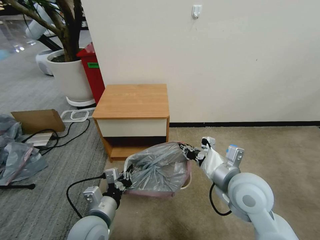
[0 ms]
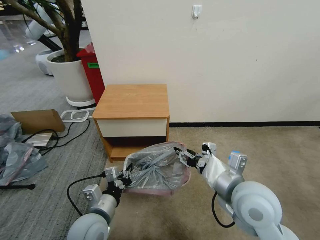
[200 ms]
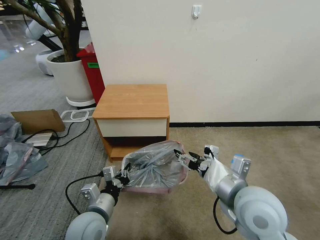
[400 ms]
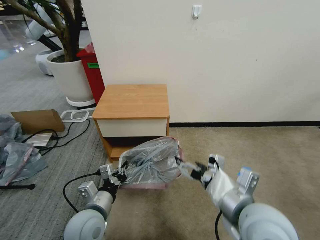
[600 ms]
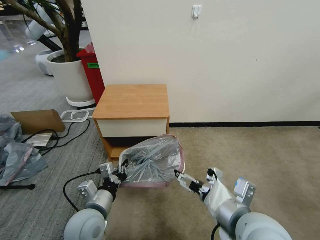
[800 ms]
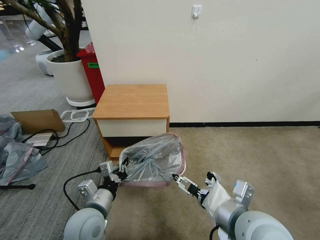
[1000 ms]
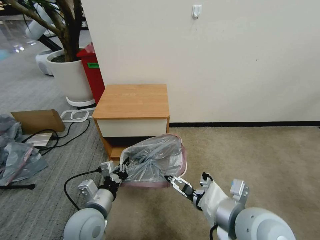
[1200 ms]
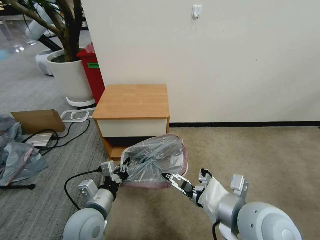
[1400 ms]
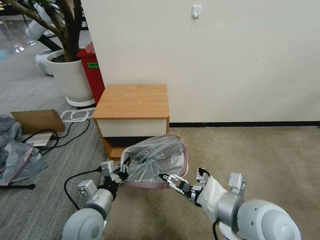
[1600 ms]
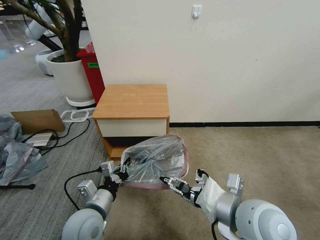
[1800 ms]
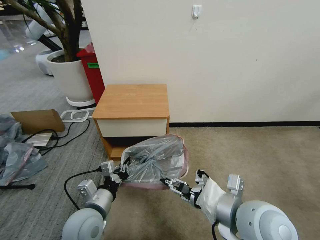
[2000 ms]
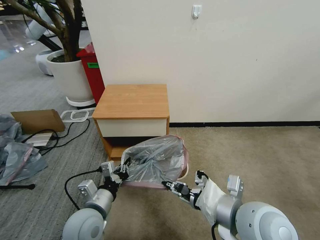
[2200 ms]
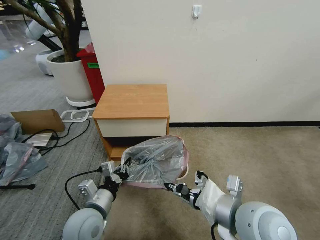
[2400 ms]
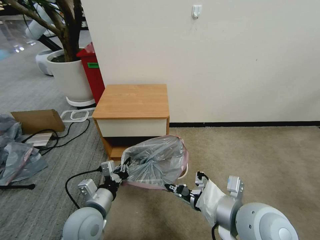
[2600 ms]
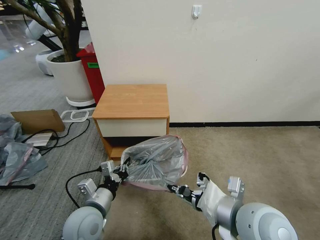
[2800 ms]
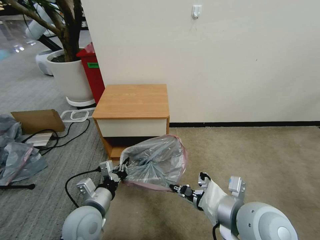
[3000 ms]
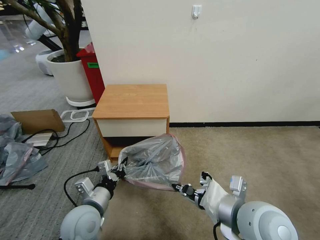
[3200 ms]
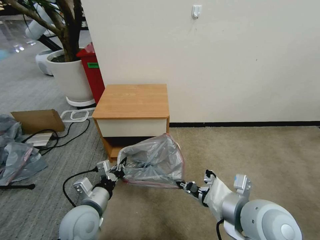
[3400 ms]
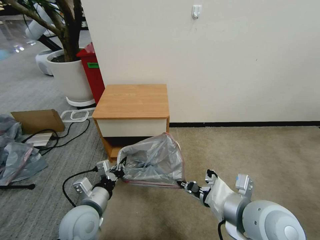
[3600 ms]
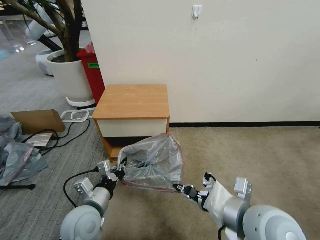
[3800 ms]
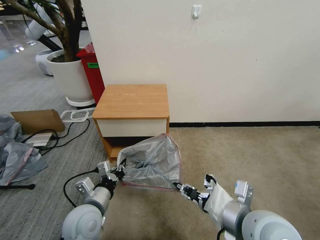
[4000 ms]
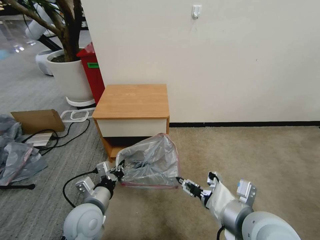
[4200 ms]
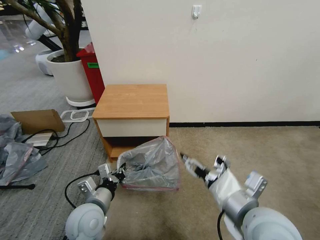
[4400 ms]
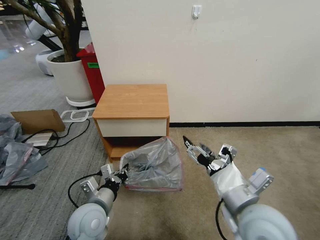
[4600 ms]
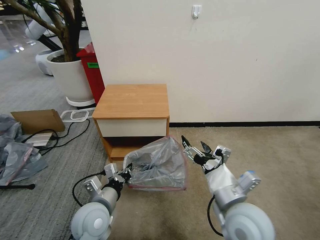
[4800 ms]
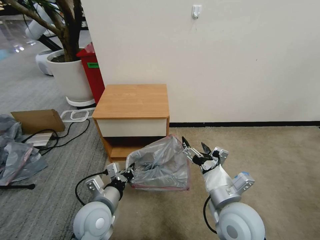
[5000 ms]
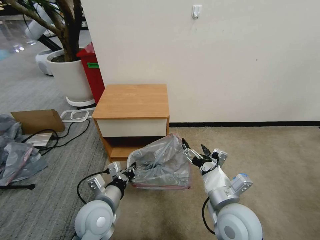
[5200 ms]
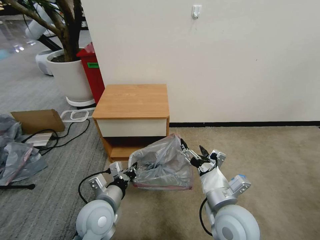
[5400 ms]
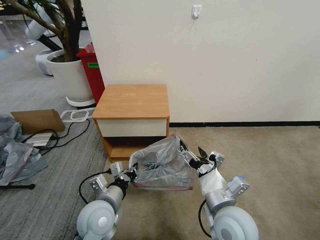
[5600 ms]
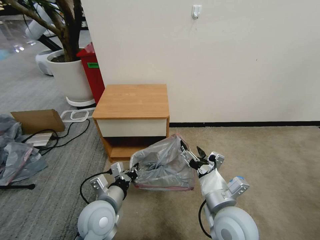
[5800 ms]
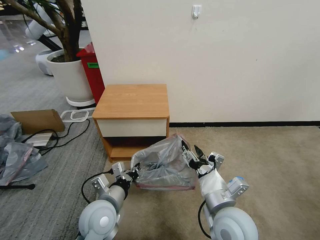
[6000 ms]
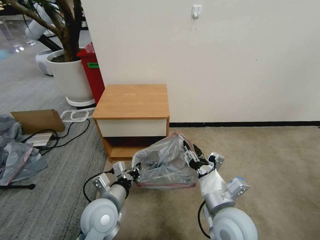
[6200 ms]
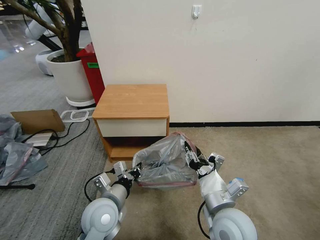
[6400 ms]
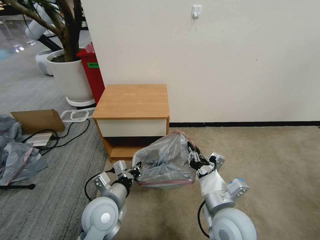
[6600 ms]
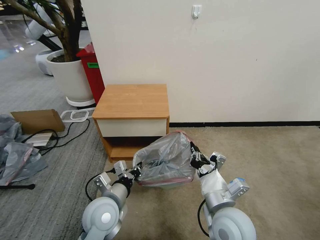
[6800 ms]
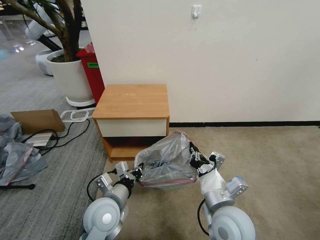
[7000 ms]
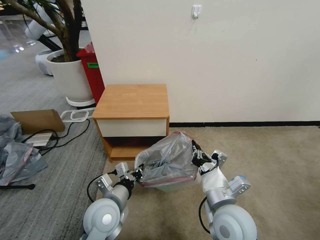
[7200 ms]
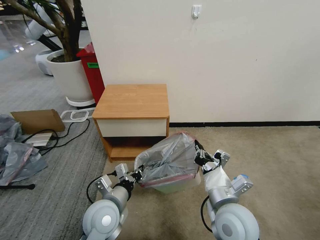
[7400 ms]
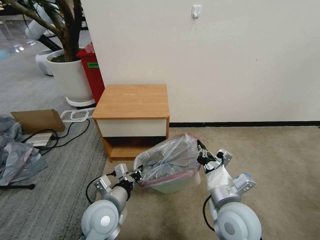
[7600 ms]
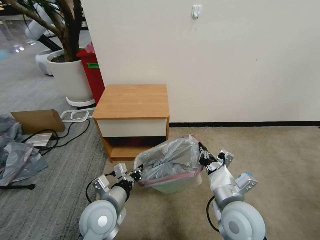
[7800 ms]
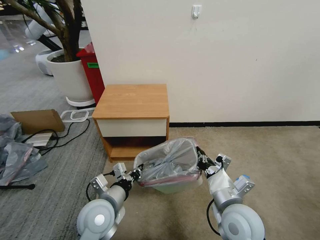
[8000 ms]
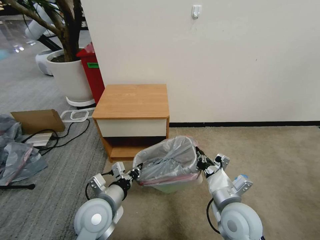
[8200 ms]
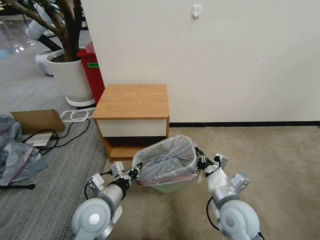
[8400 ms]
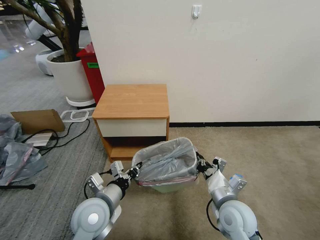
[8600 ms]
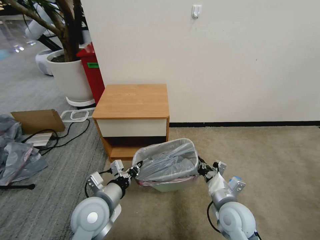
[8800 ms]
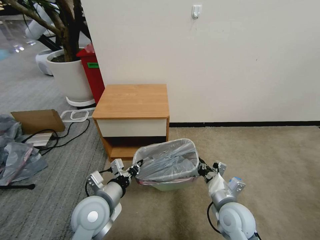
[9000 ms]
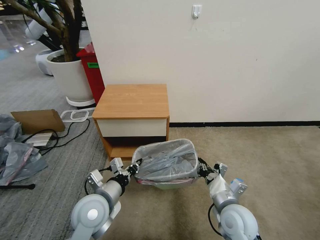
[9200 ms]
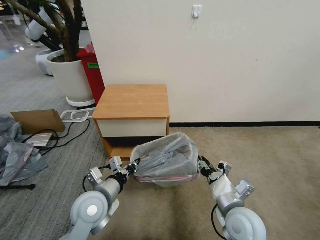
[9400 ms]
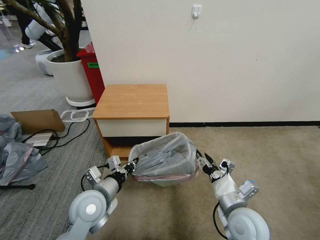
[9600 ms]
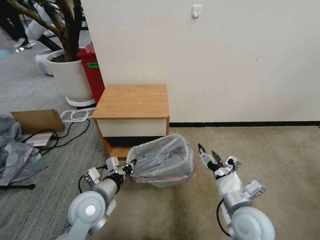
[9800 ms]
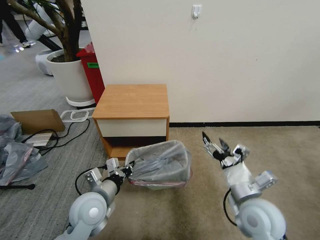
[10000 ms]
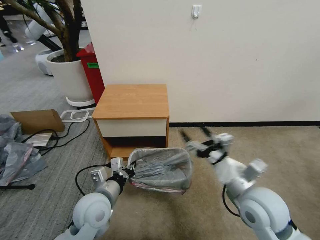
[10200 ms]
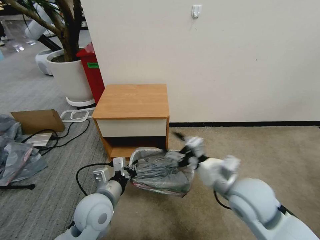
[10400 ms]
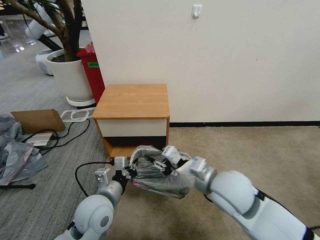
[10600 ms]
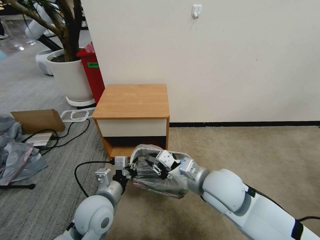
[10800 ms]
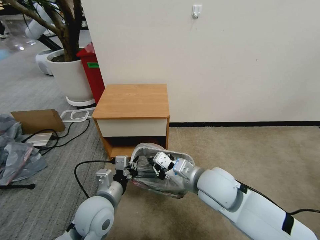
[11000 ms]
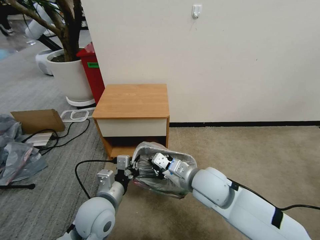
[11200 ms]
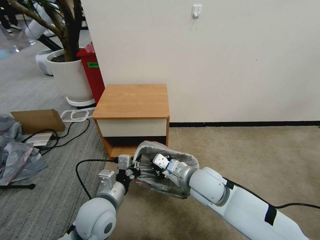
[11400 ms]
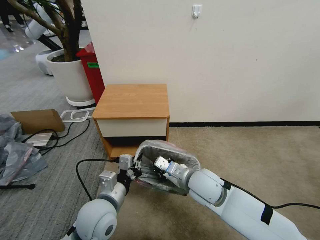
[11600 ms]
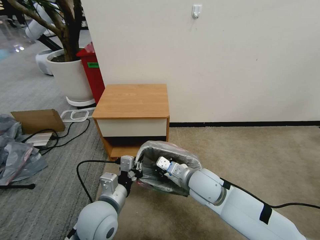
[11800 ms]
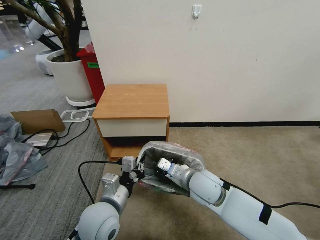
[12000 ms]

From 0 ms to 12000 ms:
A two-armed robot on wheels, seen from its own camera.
Task of the whole recording: Pick up the garbage bag from the table and place it over the trash can.
From 0 ms to 1600 ms: The right gripper shifts approximately 5 cm backward, and opens.
From 1600 ms to 3000 ms: The right gripper closes up.
From 3000 ms to 4400 ms: The right gripper opens.
From 4400 ms to 6000 ms: The right gripper is displaced downward by about 5 cm.
From 6000 ms to 7600 ms: The right gripper closes up.
From 7600 ms to 9000 ms: The right gripper heads downward, covering roughly 10 cm.
From 9000 ms to 10400 ms: The right gripper shifts roughly 15 cm upward, and opens.
From 10400 ms to 12000 ms: The right gripper is displaced downward, to the left and forward by approximately 15 cm, and closes.

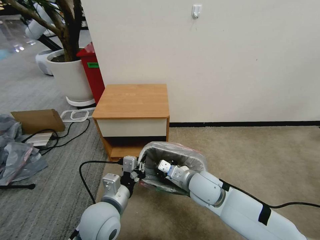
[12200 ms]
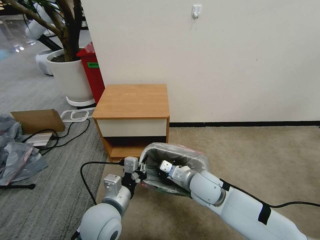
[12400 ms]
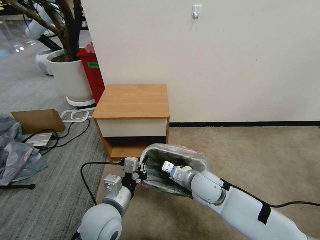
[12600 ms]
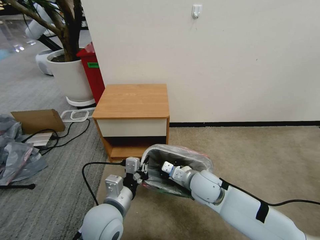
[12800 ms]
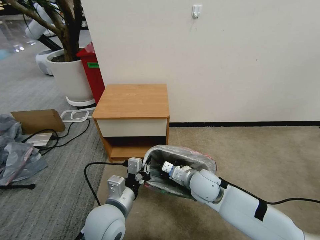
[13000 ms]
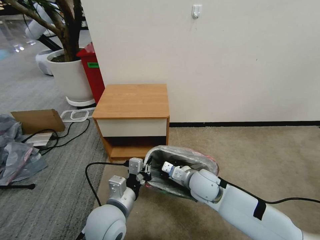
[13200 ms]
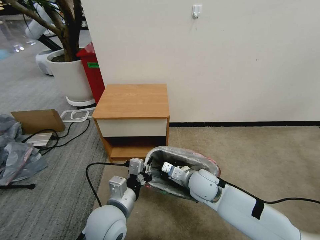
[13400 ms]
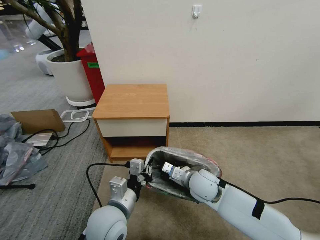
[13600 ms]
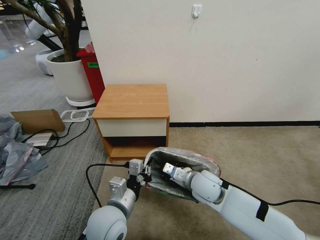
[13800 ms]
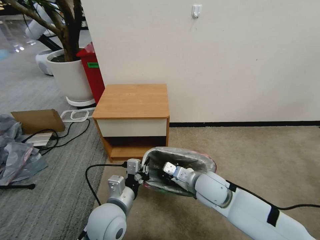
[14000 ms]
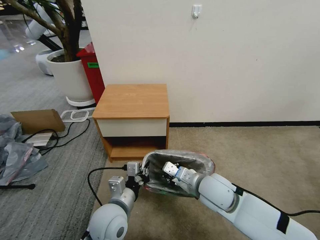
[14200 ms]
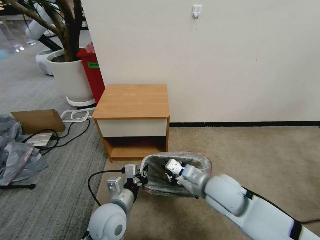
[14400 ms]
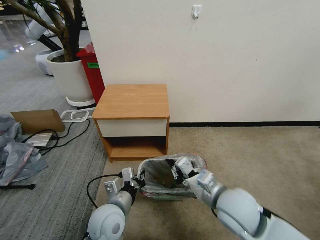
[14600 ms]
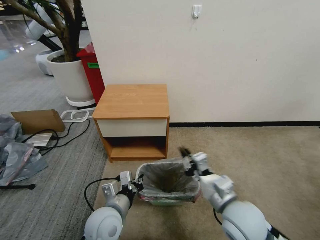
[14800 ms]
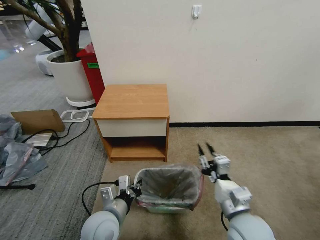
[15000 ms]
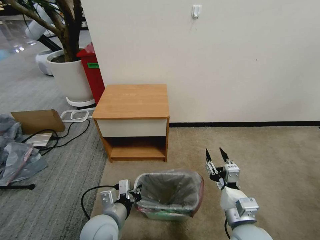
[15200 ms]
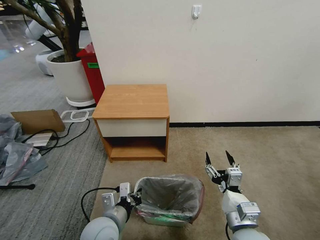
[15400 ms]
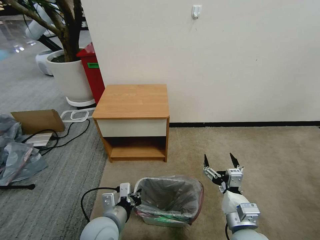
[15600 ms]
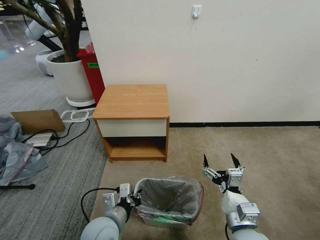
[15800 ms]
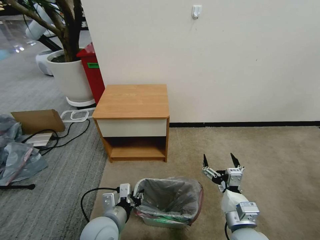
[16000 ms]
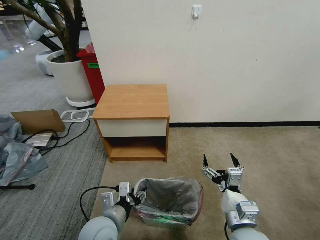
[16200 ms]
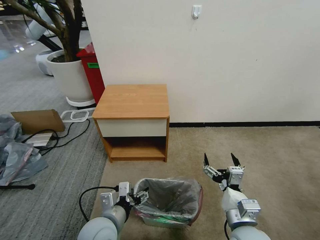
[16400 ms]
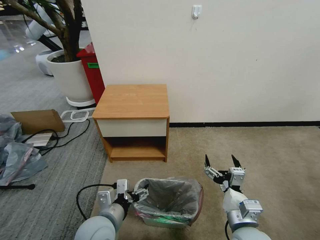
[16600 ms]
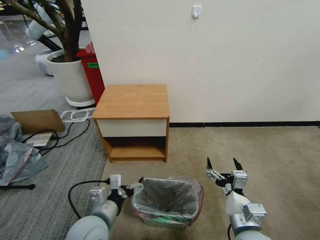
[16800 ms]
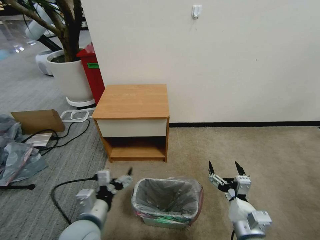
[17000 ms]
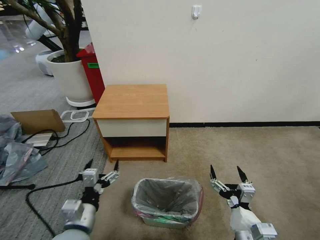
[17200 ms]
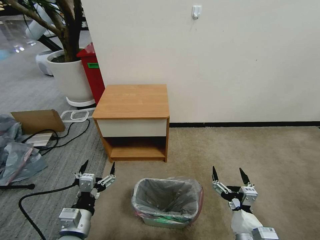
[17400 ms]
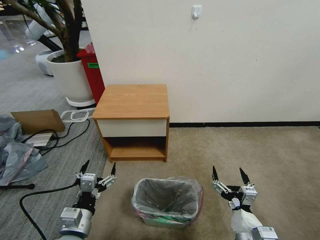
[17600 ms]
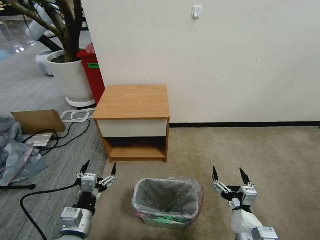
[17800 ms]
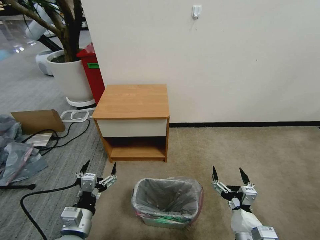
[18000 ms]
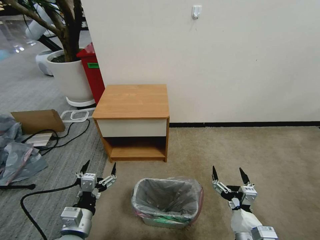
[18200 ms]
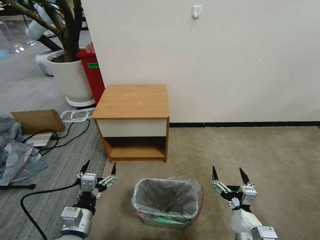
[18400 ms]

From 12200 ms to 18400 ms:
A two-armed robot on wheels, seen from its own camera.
Task of the whole recording: Pick up the garbage bag from the table and place it over the trash can.
From 12200 ms to 13800 ms: The grippers make only small movements.
From 13800 ms to 15400 ms: The left gripper shifts by some 5 cm. The right gripper moves backward and to the right, roughly 20 cm, and opens up.
From 15400 ms to 16800 ms: The left gripper opens.
From 16800 ms to 18400 ms: The left gripper is displaced to the left by roughly 5 cm.
